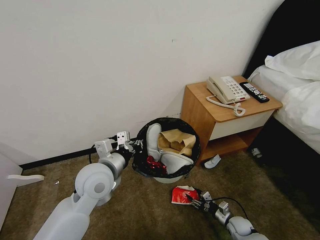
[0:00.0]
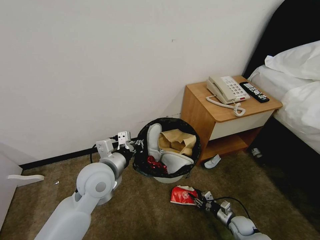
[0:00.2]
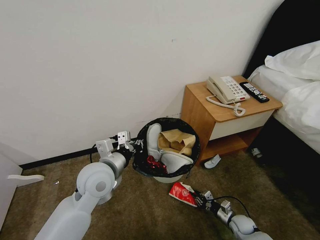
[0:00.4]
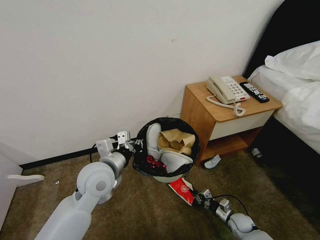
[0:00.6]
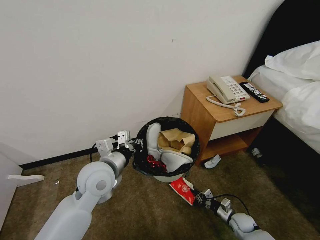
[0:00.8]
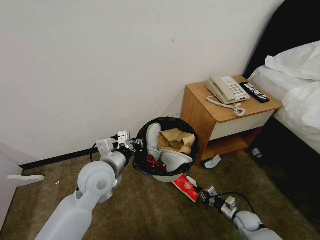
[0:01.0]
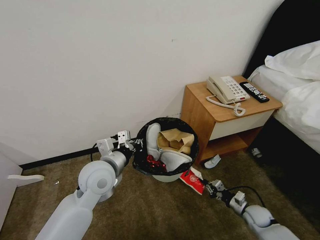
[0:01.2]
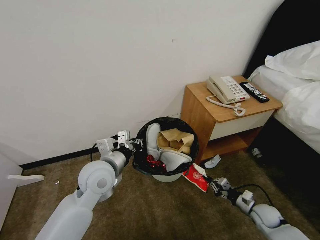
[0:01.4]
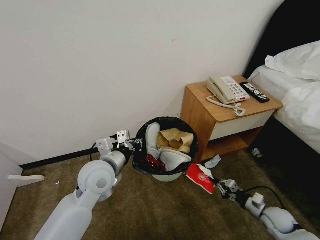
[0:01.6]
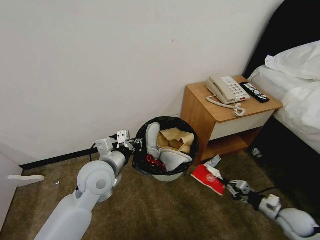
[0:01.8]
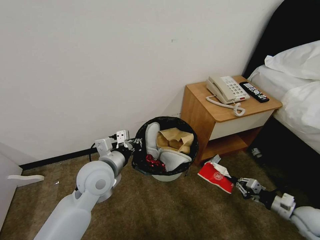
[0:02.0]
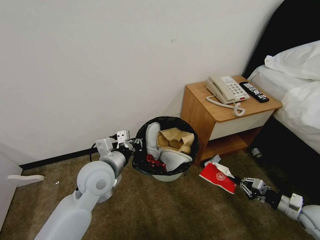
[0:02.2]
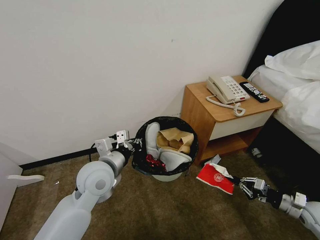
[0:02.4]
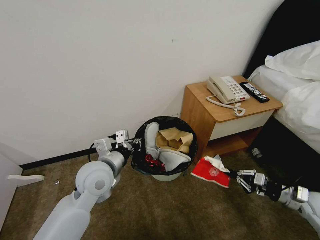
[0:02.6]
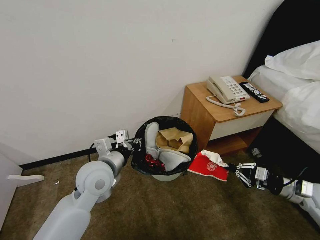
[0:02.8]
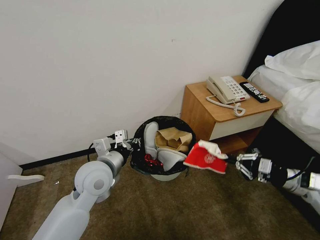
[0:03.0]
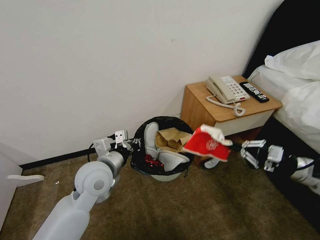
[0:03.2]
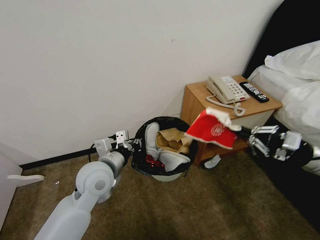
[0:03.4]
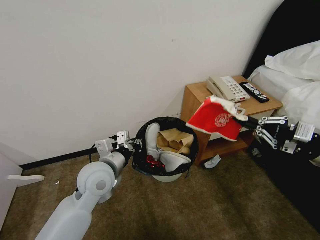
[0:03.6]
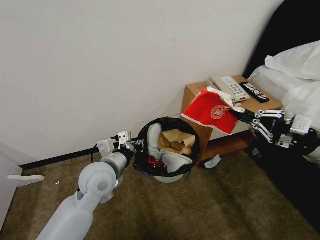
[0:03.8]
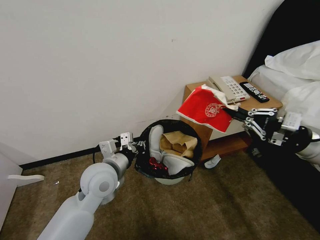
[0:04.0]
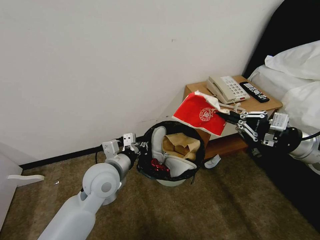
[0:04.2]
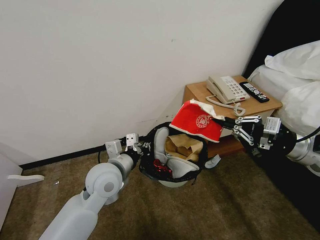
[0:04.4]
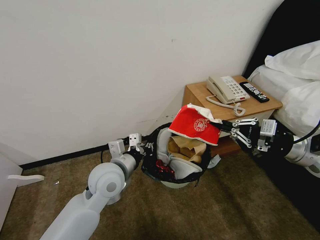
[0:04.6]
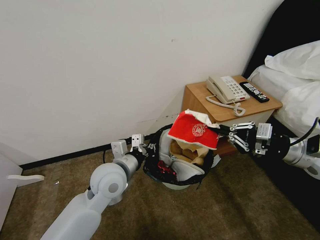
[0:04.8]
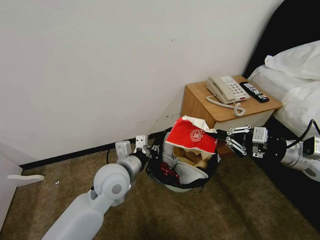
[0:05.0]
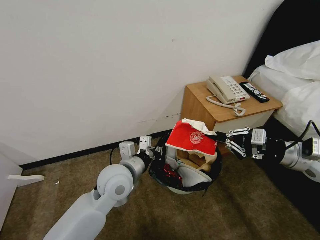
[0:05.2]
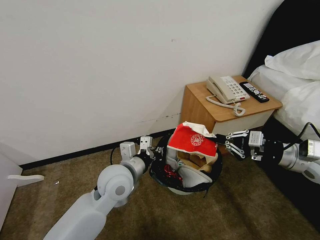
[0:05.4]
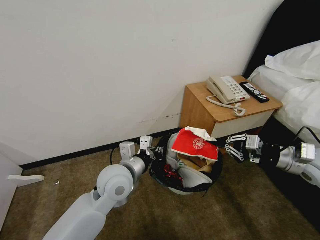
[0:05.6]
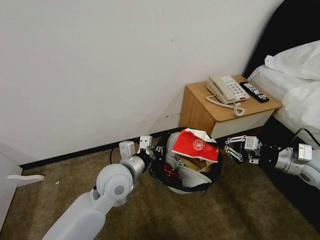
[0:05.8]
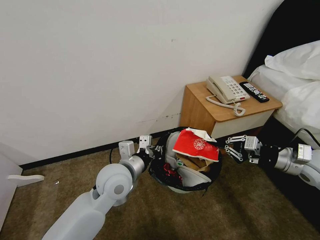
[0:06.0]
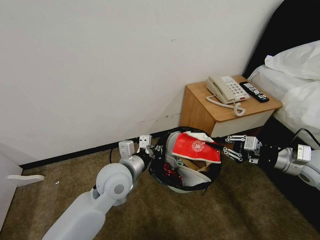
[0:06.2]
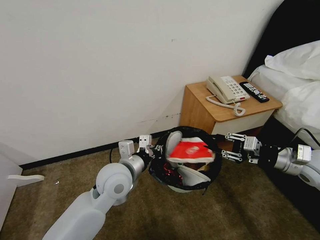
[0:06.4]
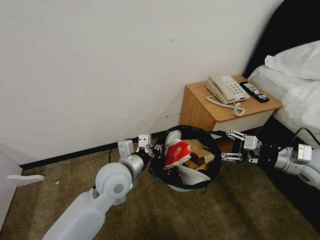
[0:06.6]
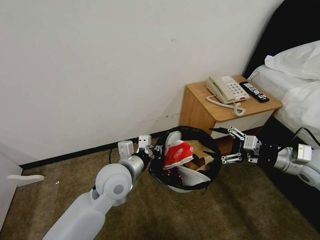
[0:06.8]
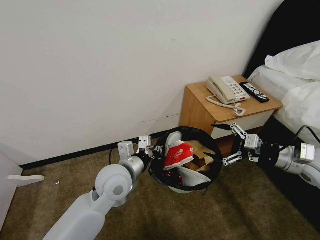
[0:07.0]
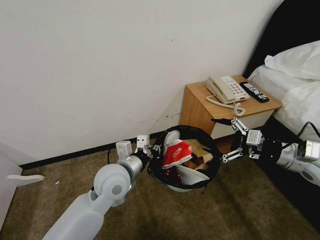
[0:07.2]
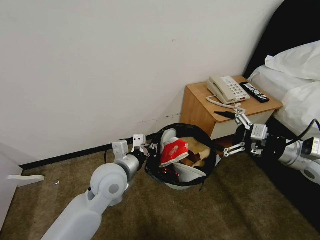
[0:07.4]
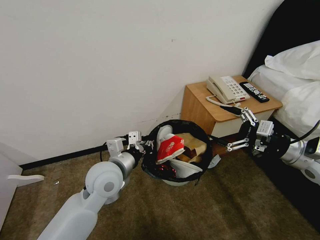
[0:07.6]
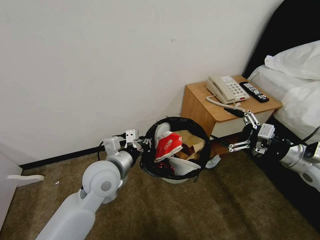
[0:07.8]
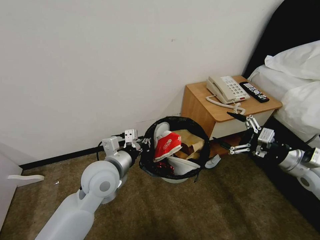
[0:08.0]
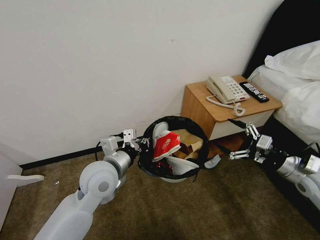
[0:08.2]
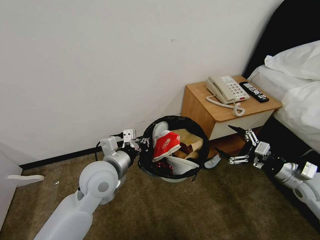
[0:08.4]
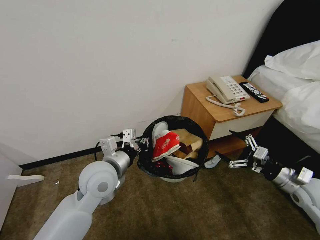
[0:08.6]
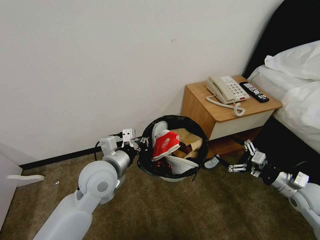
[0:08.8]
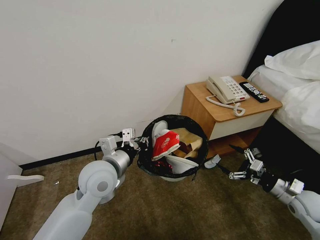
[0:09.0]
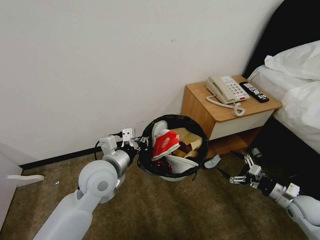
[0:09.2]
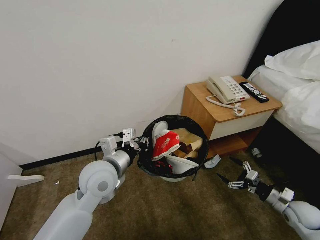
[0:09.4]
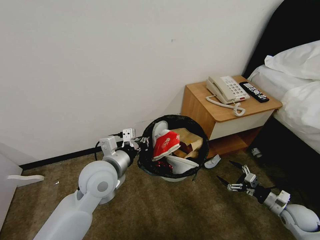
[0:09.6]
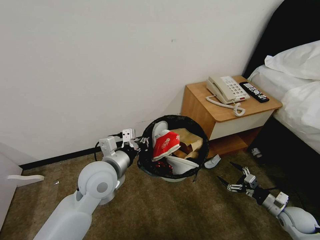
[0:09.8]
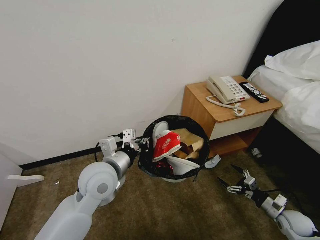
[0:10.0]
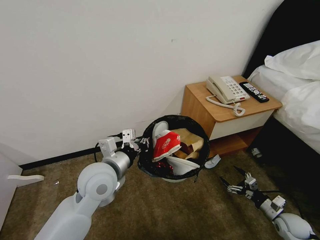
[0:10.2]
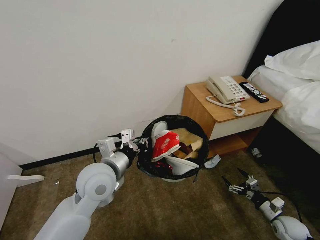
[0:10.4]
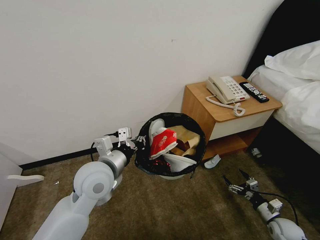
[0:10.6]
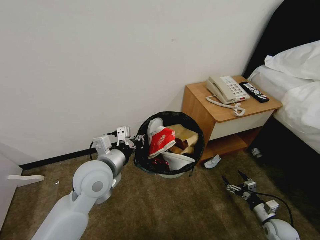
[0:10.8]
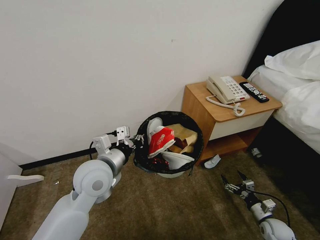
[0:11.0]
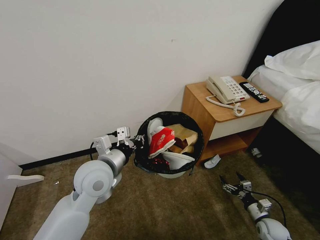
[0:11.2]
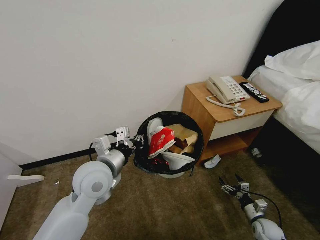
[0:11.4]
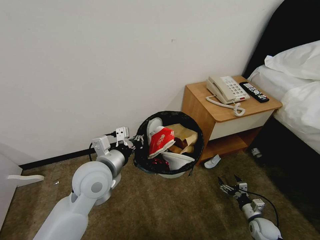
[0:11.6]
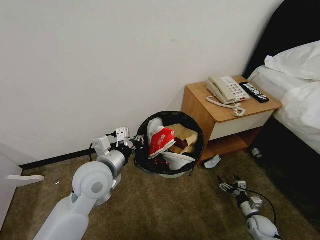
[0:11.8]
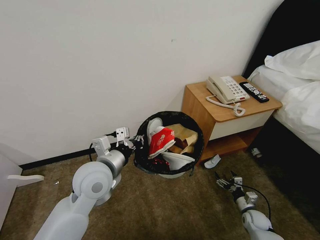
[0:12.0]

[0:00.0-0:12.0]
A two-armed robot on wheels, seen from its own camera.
Task of the whole recording: Pick up the trash bin, then pick up the garbage from the floor and place it into the trash bin.
0:00.0 to 0:01.6: The right gripper goes about 15 cm upward and to the right, and closes its fingers.
0:01.6 to 0:03.0: The right gripper goes approximately 20 cm upward.
0:03.0 to 0:04.4: The right gripper travels upward and to the left by roughly 15 cm.
0:04.4 to 0:06.0: The right gripper ends up some 5 cm from where it was.
0:06.0 to 0:07.6: The right gripper opens.
0:07.6 to 0:09.0: The right gripper heads downward, covering some 20 cm.
0:09.0 to 0:10.4: The right gripper travels downward by roughly 15 cm.
0:10.4 to 0:12.0: The right gripper goes roughly 10 cm downward and to the left.

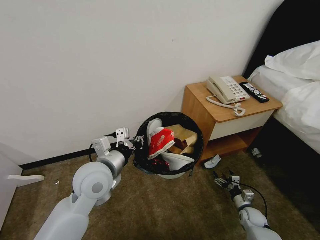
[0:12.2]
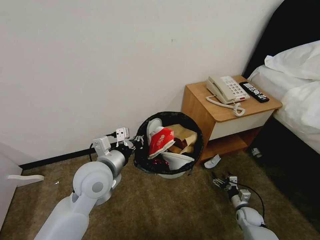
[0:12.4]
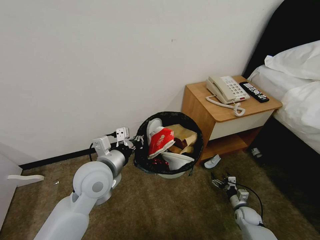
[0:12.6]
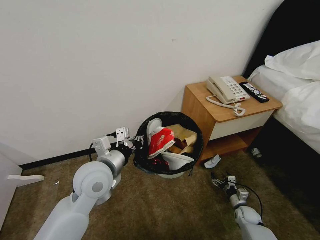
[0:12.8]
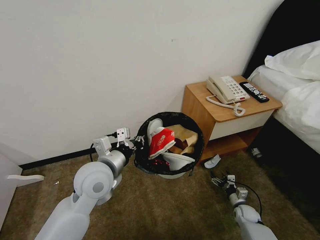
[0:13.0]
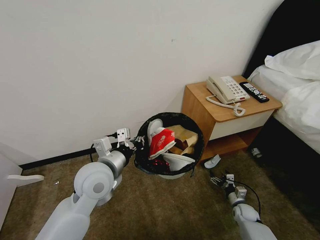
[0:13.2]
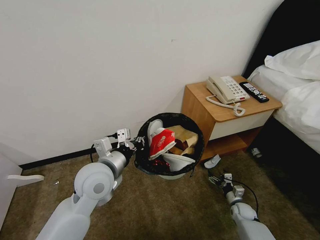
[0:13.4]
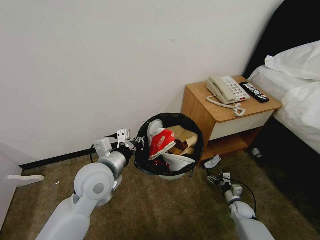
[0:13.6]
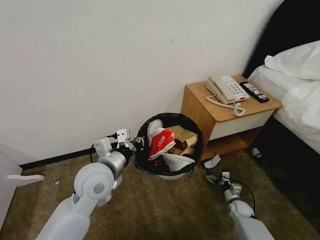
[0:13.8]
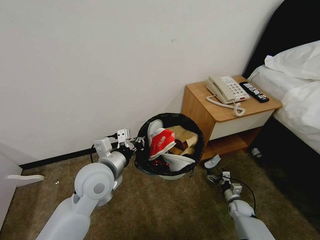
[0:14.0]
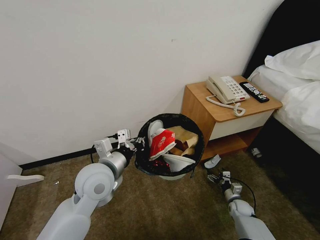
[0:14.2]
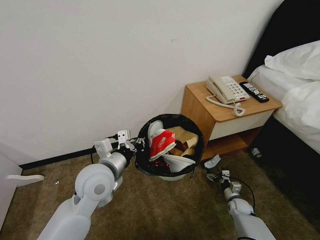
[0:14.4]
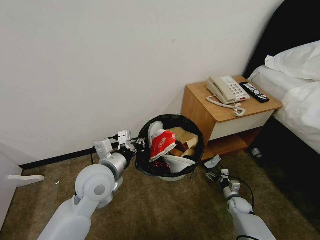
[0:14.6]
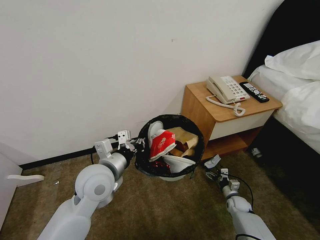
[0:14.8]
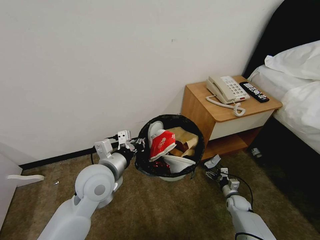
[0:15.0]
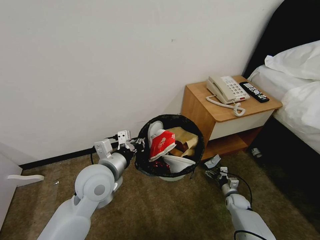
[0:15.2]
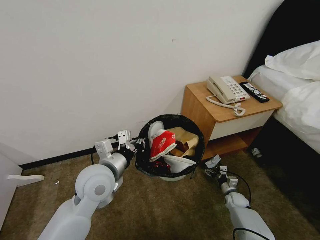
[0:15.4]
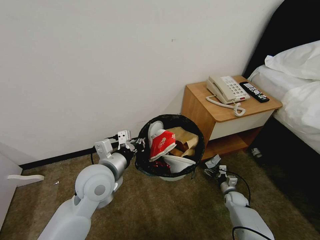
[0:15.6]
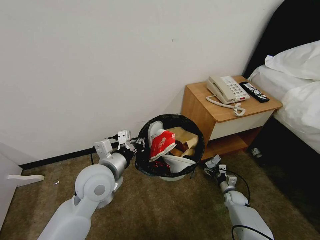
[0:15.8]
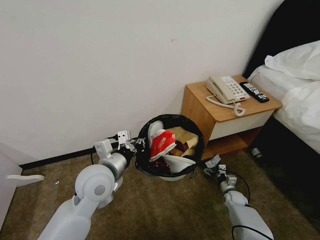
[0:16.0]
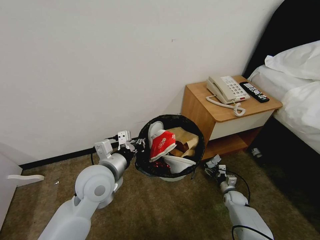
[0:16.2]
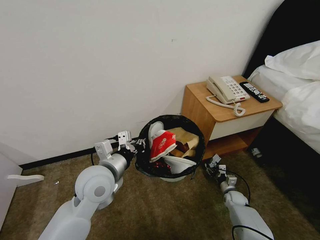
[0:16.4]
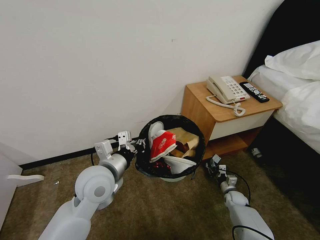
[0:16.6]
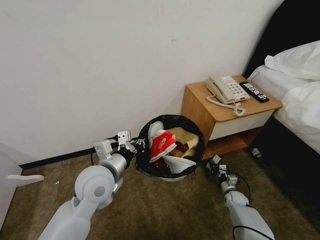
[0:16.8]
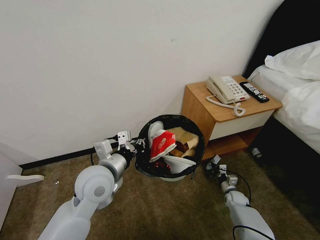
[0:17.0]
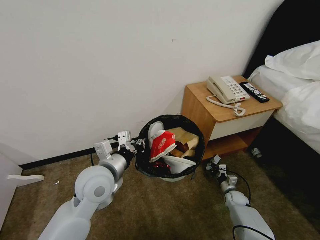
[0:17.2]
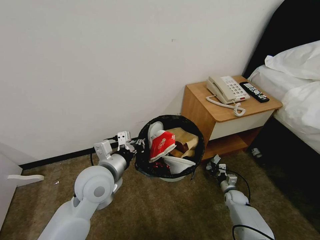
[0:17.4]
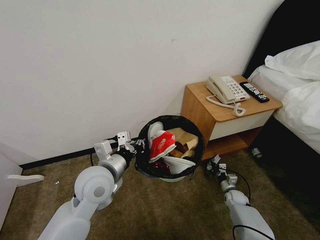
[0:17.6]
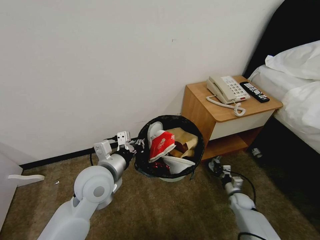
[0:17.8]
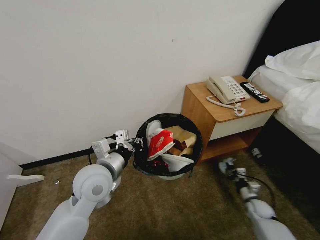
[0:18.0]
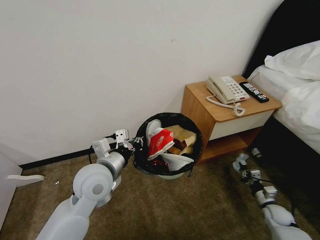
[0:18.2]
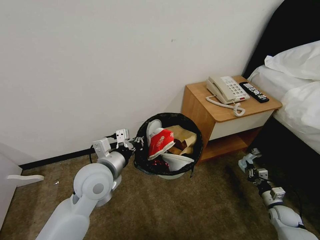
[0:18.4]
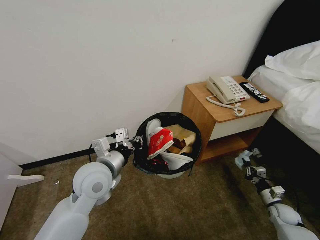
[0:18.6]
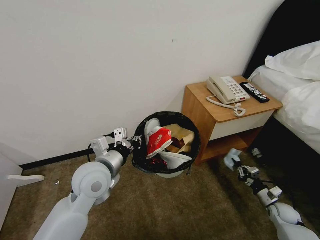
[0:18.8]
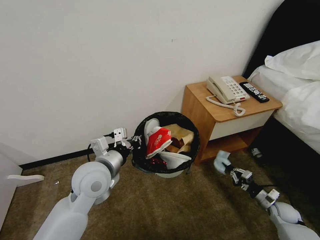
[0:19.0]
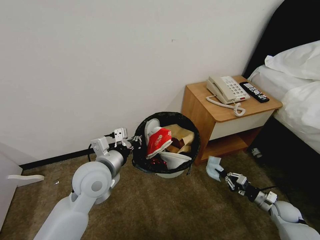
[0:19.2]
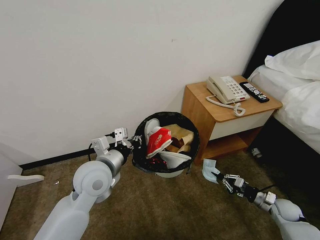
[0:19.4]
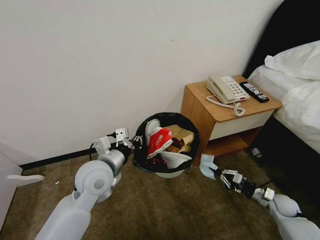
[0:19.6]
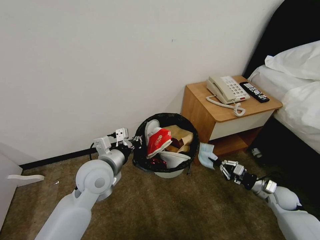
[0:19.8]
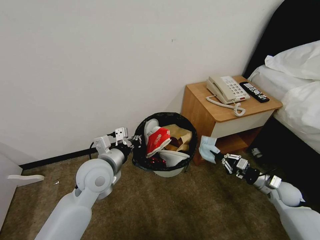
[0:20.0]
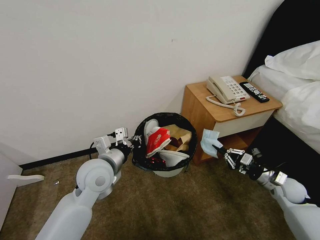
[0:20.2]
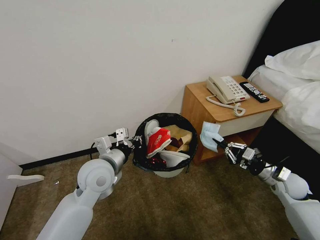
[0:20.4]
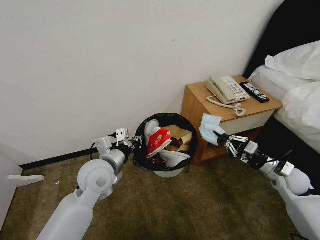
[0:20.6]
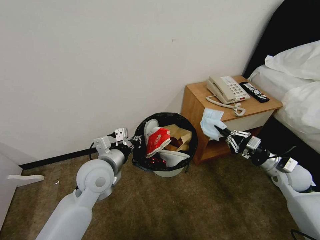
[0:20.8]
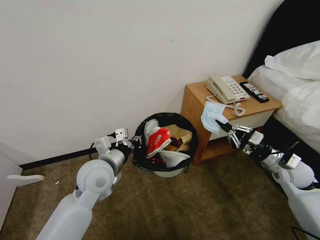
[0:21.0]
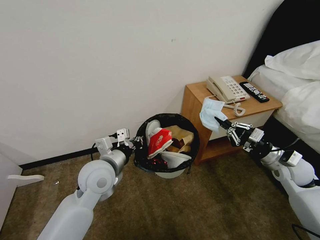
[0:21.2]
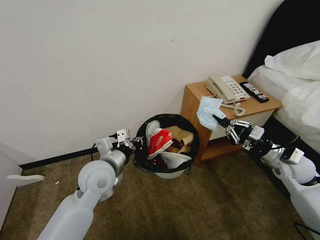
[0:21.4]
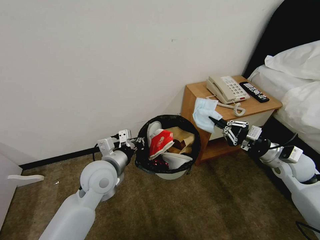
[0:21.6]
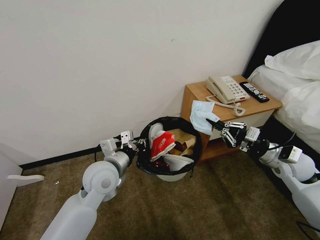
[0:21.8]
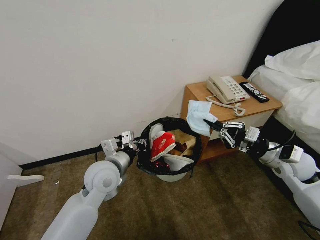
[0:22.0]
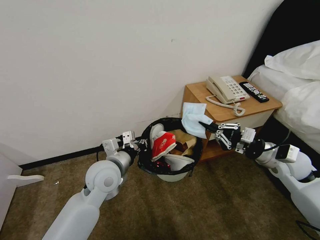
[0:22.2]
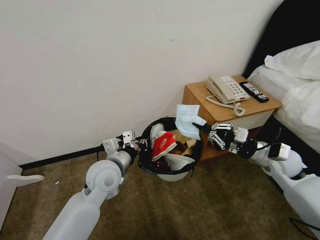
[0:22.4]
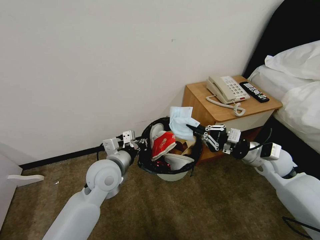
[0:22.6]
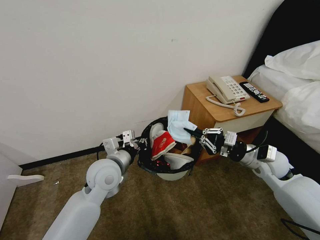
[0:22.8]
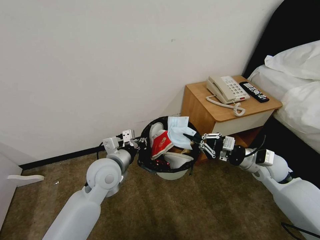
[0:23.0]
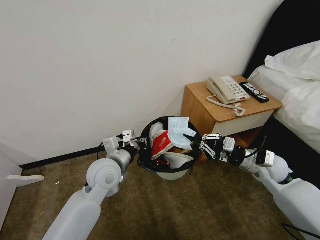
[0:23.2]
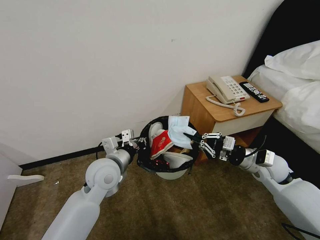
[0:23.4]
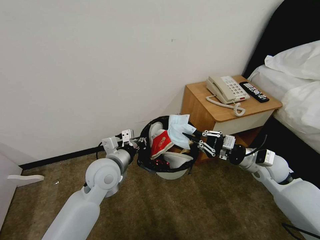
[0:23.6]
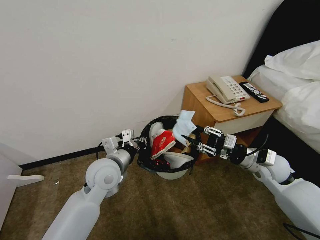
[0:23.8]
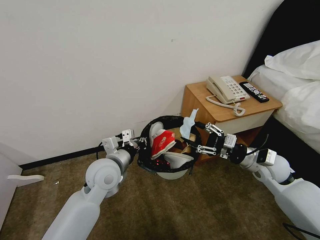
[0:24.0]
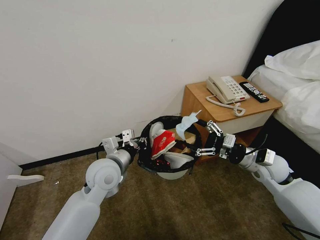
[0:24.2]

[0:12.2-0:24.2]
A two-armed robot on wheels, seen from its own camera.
Task of the whole recording: Pick up the trash bin, then pick up the garbage from the floor and place it into the trash bin.
0:12.2 to 0:13.8: The grippers move only a little.
0:13.8 to 0:15.2: The grippers stay close to where they were, moving slightly.
0:15.2 to 0:16.6: The right gripper closes its fingers.
0:16.6 to 0:18.2: The right gripper changes place by approximately 10 cm, and closes.
0:18.2 to 0:19.8: The right gripper heads upward, covering approximately 10 cm.
0:19.8 to 0:21.2: The right gripper travels upward by some 15 cm.
0:21.2 to 0:22.6: The right gripper travels to the left by some 10 cm.
0:22.6 to 0:24.2: The right gripper opens its fingers.
